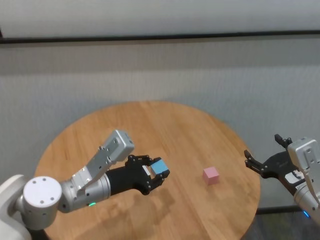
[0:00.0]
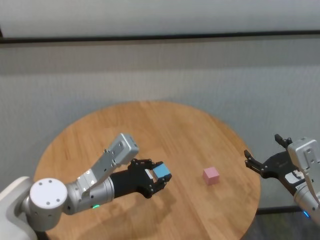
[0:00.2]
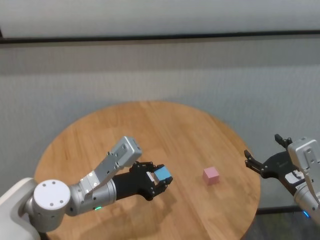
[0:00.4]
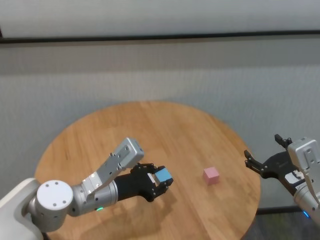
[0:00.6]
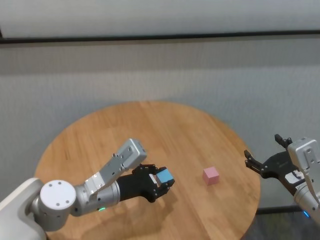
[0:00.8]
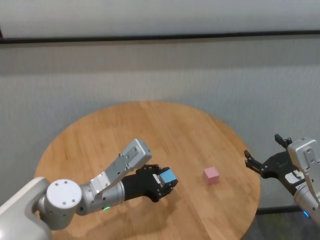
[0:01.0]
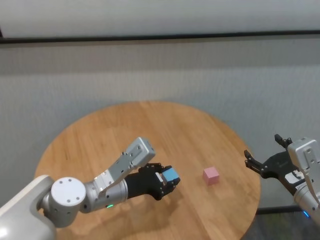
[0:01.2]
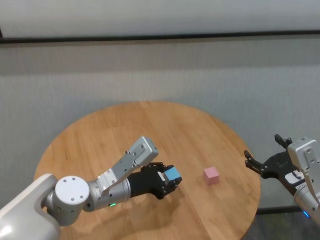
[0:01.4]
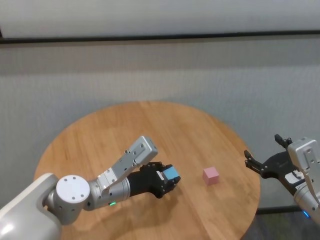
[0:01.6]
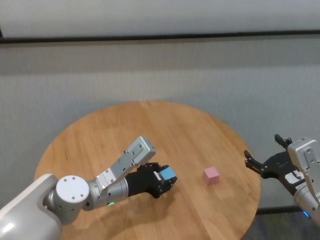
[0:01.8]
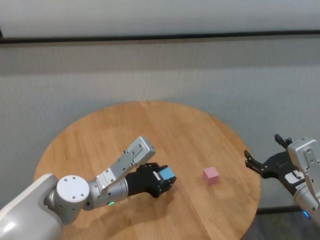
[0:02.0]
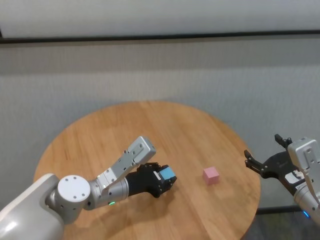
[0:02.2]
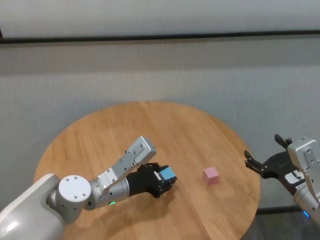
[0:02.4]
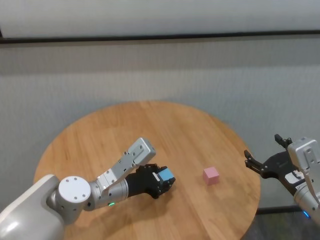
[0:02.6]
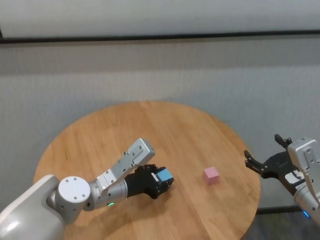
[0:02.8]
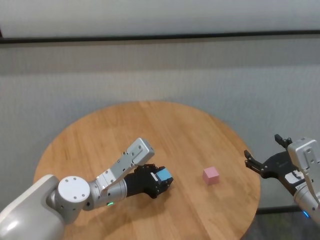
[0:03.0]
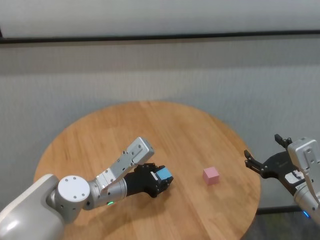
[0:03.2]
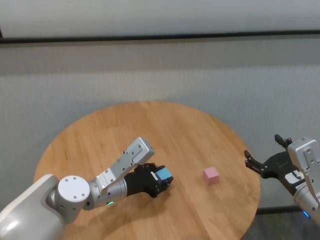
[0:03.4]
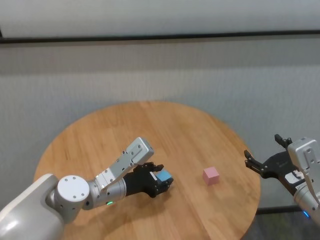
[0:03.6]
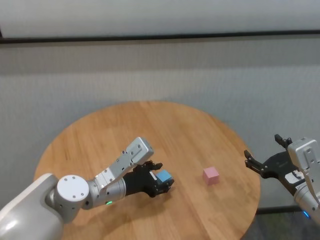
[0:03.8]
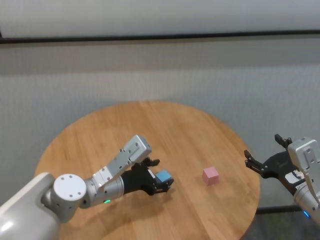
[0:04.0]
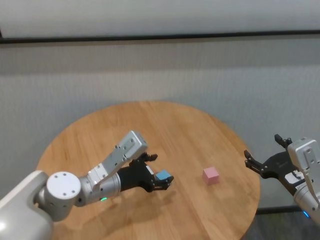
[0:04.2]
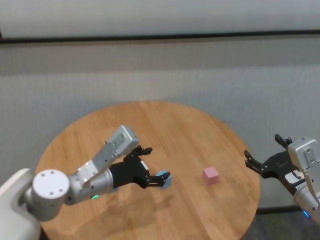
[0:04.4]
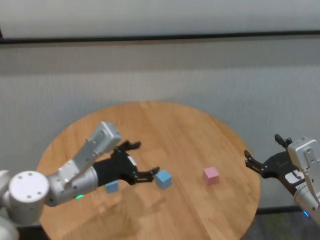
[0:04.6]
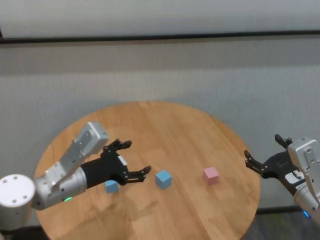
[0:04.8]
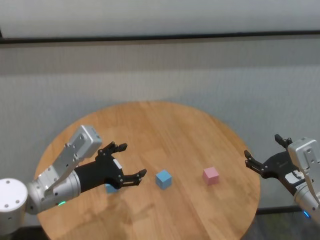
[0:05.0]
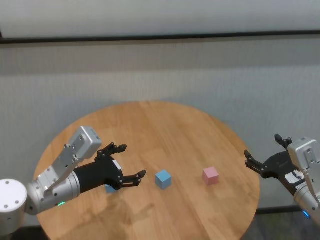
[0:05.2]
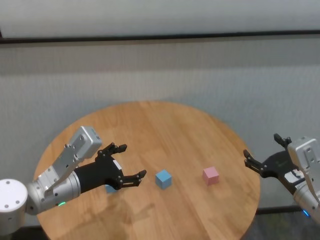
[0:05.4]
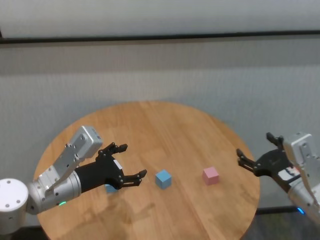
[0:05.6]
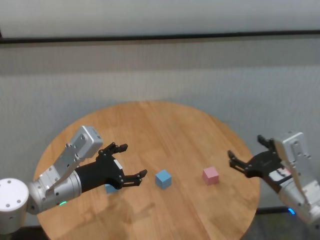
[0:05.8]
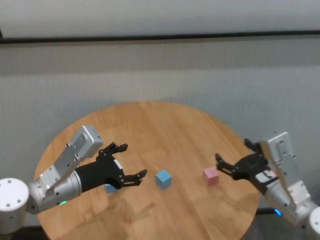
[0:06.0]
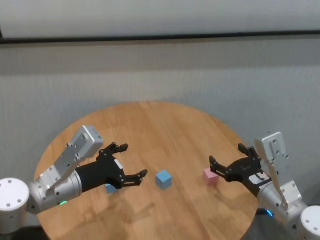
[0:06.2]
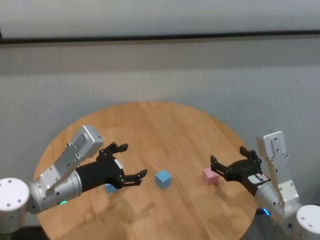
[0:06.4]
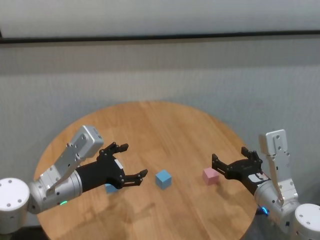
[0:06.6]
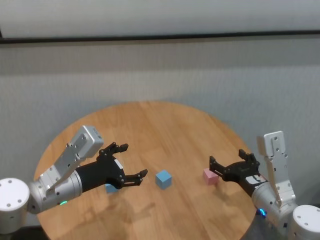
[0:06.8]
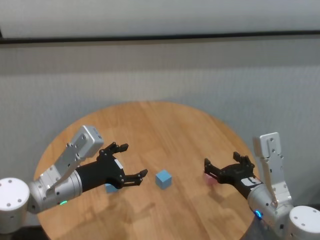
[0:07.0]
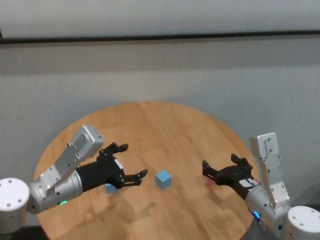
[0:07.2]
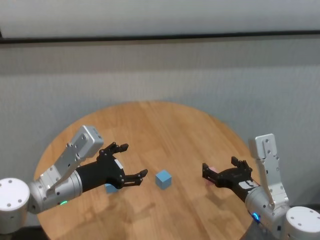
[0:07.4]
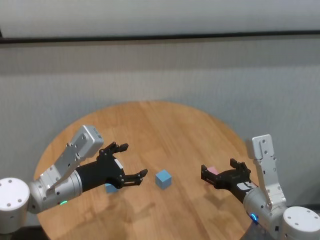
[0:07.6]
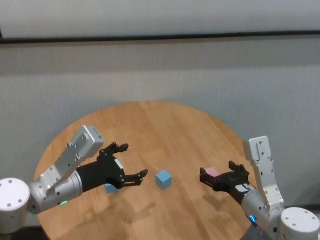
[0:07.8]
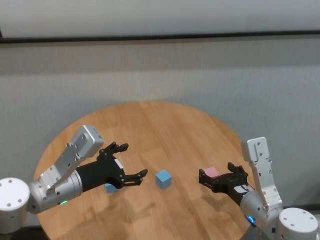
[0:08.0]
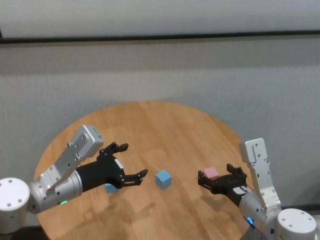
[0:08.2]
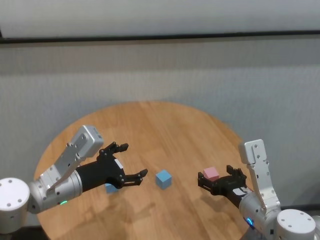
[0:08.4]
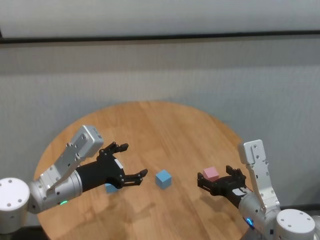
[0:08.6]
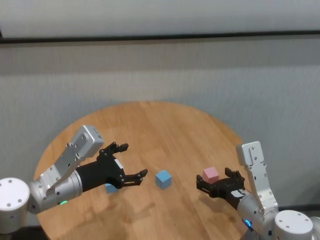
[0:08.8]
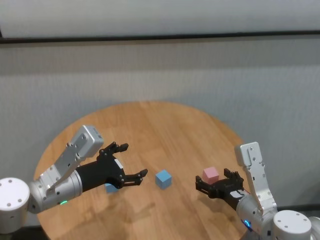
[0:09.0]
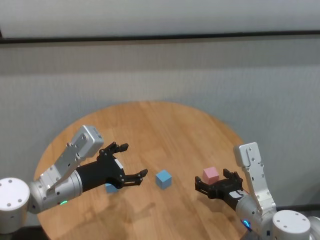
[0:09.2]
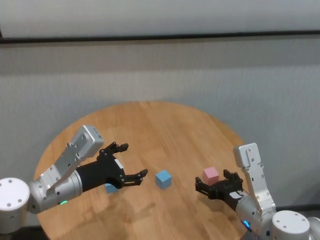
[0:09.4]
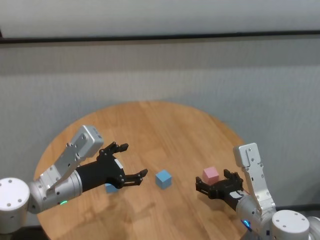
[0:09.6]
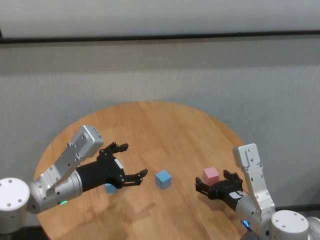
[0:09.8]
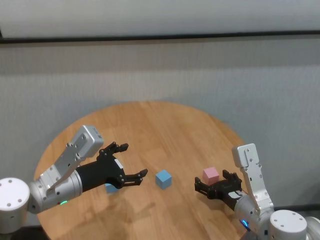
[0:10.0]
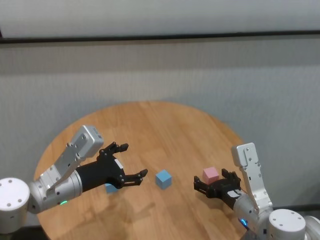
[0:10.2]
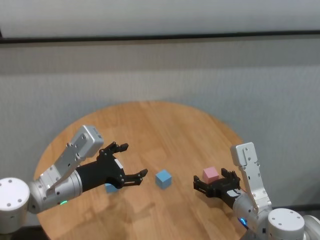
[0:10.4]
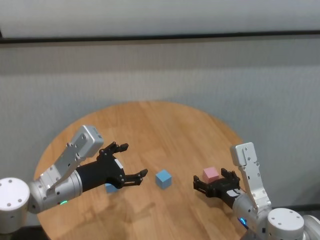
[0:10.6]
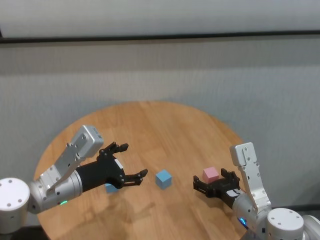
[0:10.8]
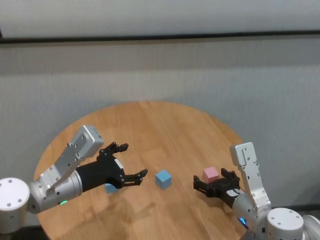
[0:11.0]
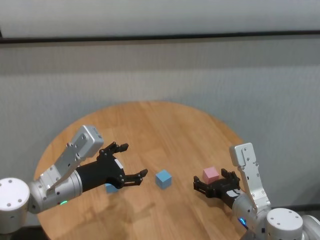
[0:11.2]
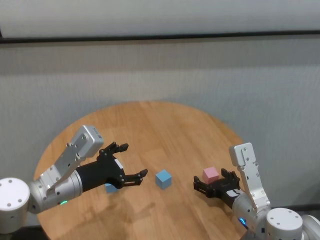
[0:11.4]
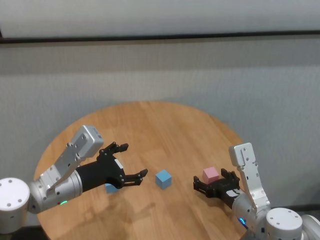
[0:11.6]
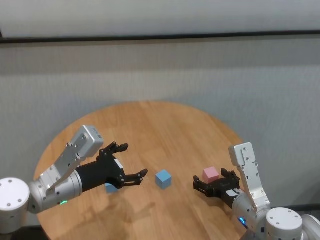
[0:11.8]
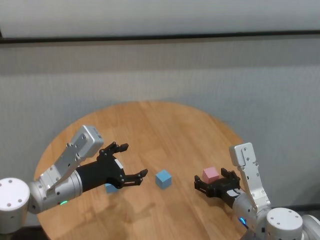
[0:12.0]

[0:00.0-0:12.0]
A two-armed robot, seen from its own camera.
Task of the whole recording: stack building blocks on the table.
Step, 0:00.0 to 0:03.8: Place the blue building block in the center of table with left gripper.

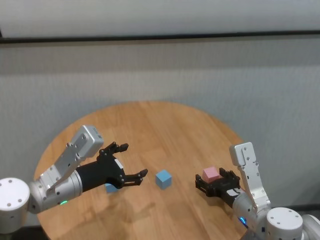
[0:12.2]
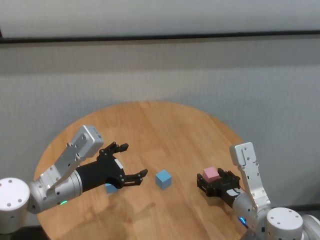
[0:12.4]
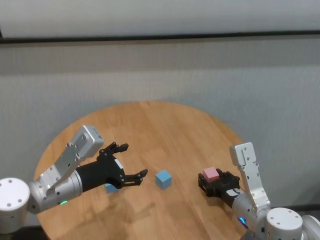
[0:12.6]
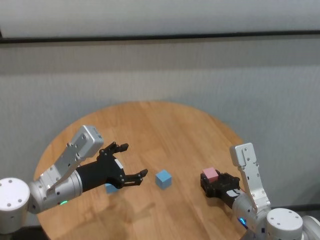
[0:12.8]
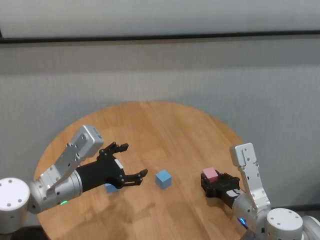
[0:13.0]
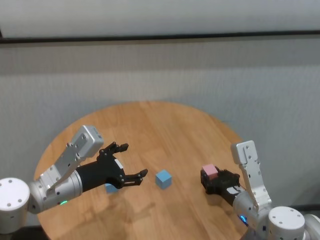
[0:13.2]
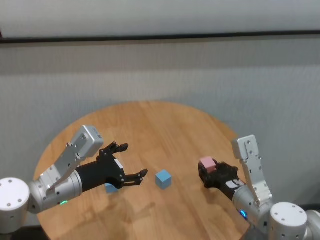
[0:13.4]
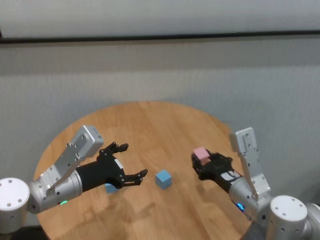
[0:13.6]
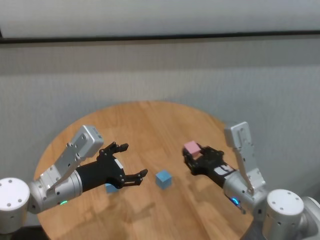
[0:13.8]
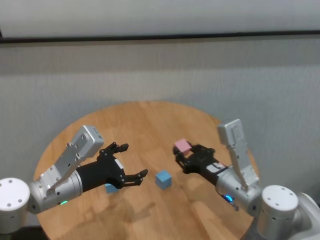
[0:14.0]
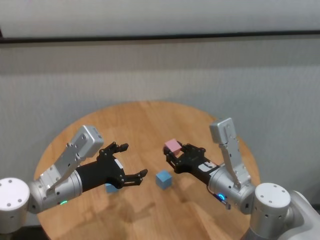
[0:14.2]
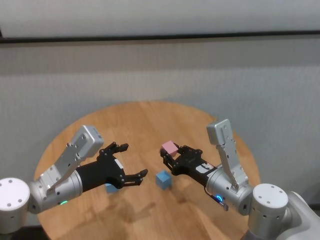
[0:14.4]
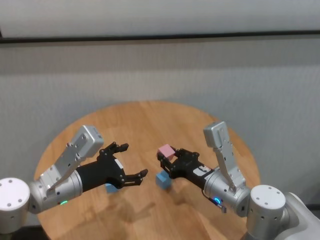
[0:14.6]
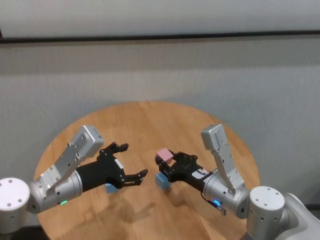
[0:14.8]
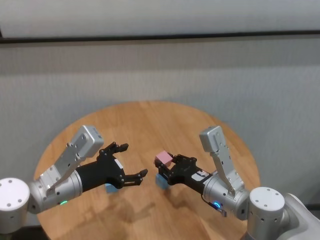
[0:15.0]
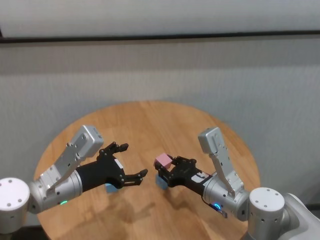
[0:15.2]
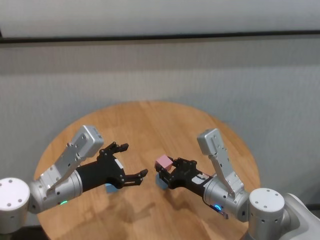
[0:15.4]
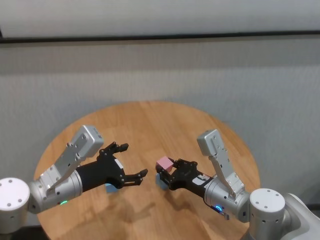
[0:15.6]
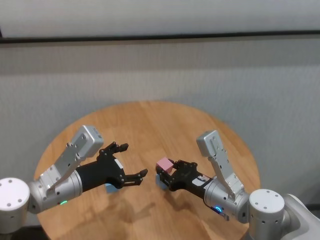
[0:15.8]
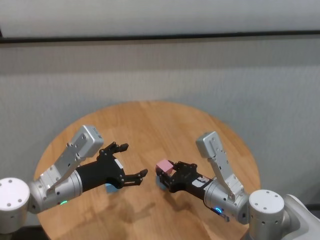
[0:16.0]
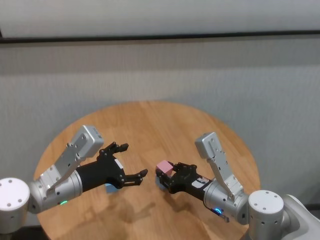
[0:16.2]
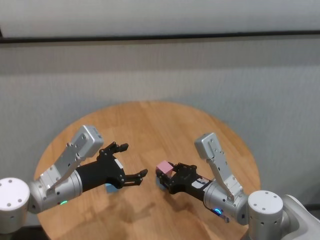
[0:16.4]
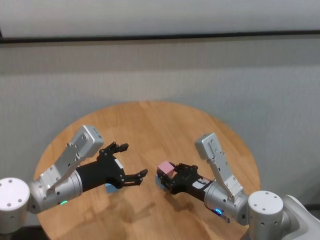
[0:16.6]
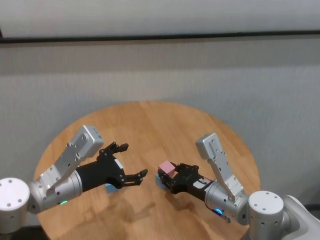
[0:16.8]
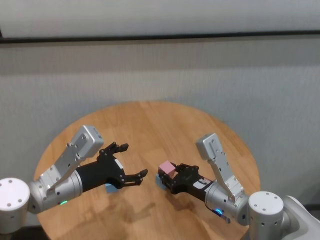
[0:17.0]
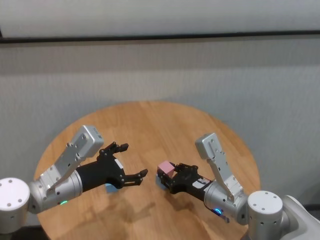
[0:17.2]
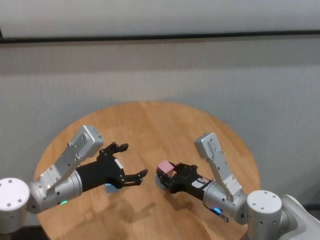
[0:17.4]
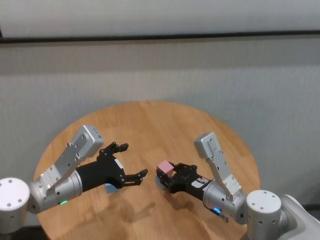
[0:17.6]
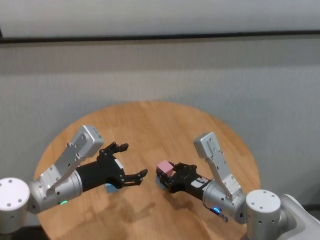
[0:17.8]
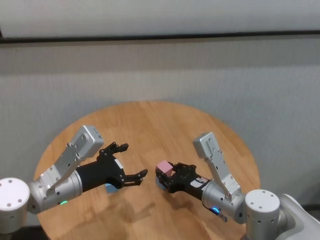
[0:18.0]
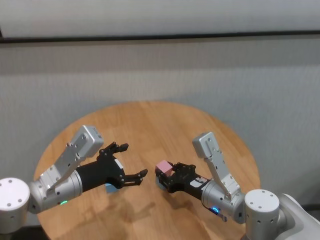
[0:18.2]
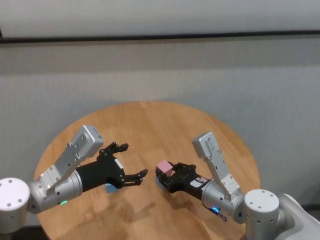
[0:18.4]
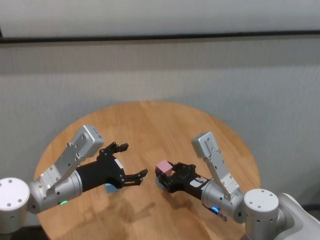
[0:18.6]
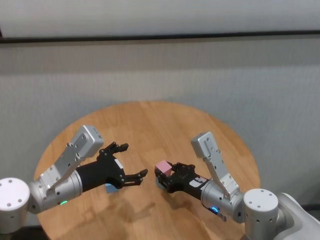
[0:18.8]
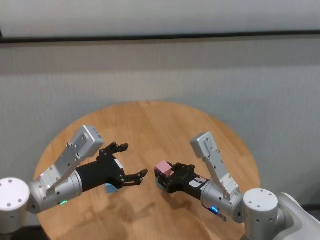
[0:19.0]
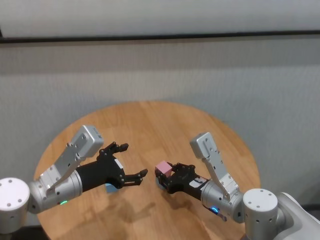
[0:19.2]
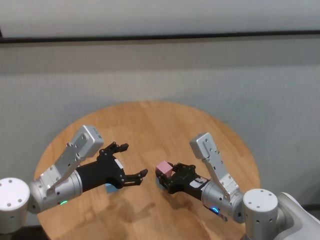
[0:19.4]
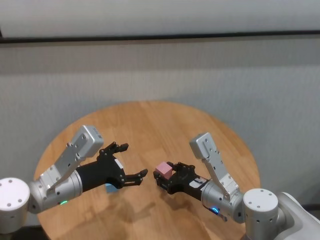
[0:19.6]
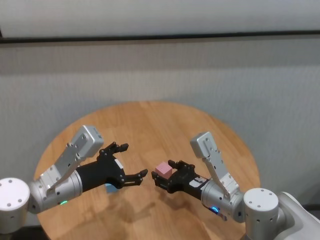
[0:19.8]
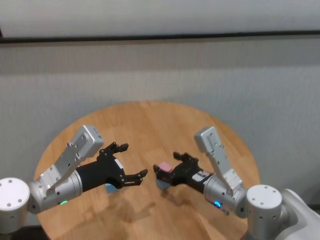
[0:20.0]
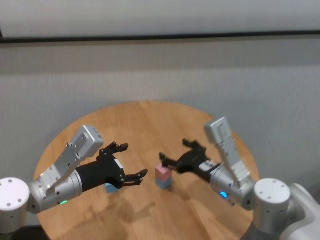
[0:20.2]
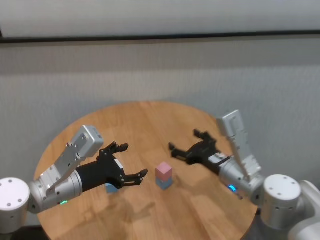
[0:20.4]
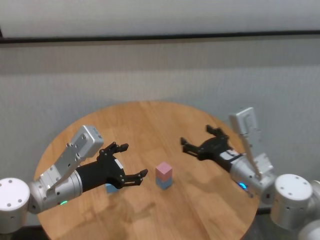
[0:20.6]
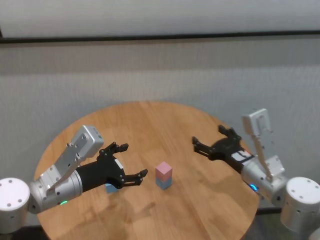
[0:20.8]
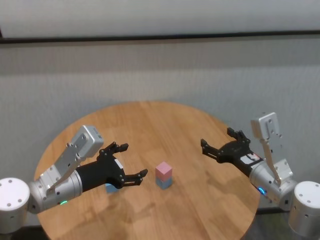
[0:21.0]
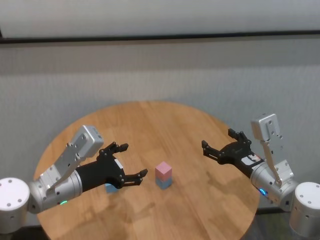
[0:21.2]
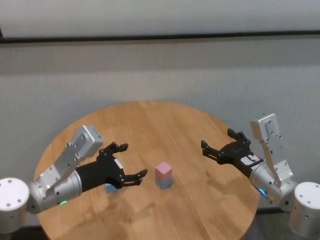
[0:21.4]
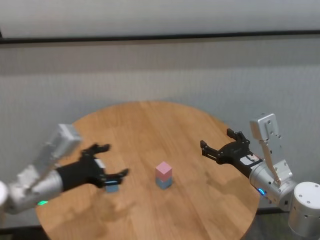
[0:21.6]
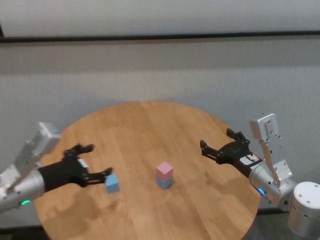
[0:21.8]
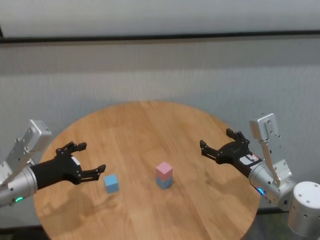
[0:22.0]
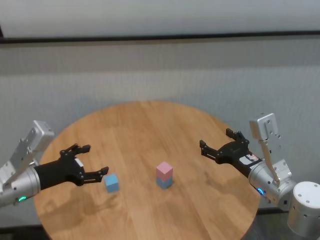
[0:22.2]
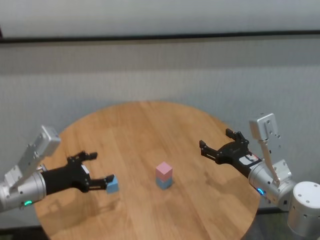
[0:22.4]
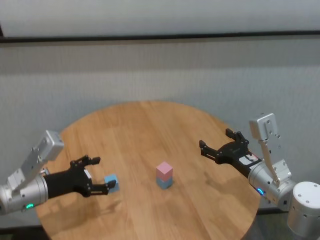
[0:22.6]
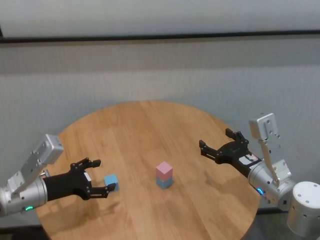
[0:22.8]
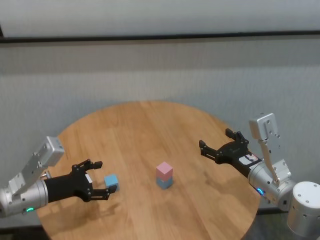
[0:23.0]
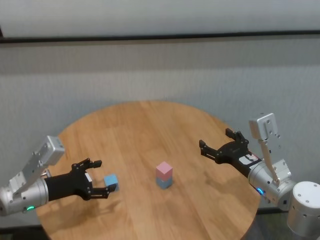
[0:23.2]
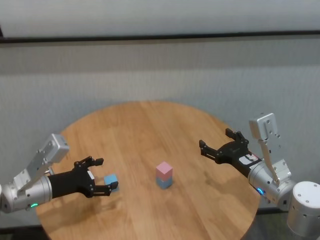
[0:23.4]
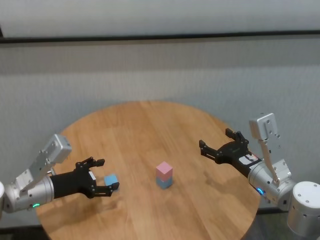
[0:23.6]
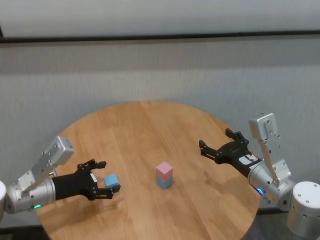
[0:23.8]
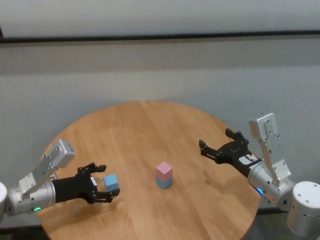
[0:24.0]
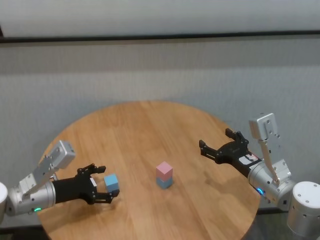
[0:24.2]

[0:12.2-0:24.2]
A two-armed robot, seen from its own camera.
Task of the whole recording: stack building blocks on the table.
Step, 0:12.2 to 0:19.8: Place the pink building block on the blue building blocks with right gripper.
